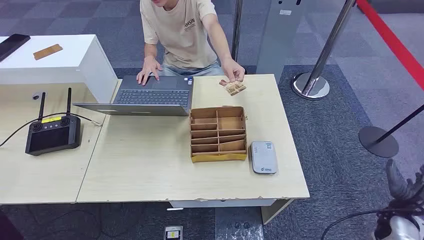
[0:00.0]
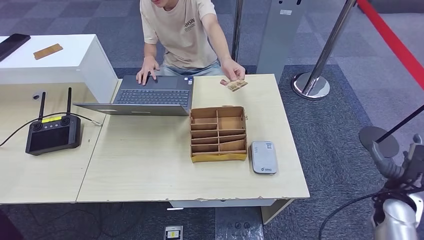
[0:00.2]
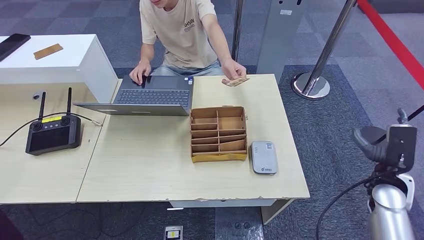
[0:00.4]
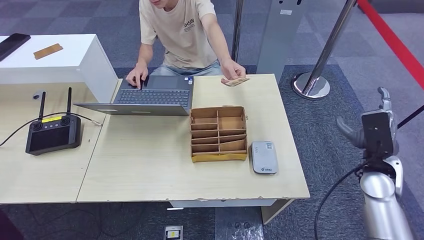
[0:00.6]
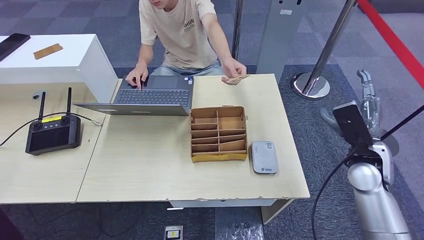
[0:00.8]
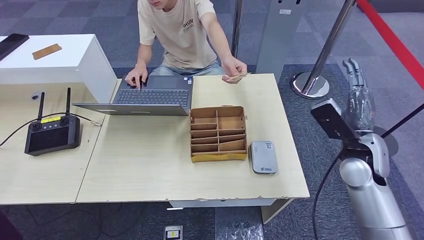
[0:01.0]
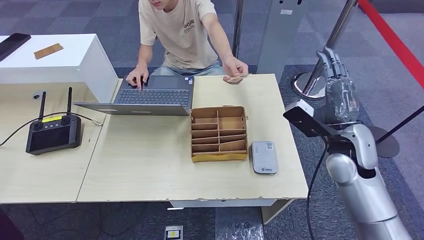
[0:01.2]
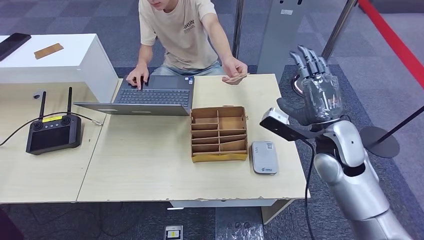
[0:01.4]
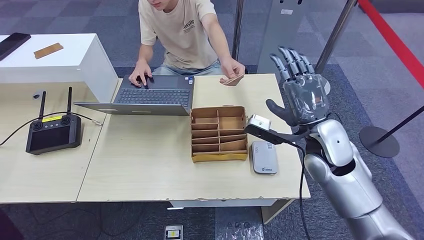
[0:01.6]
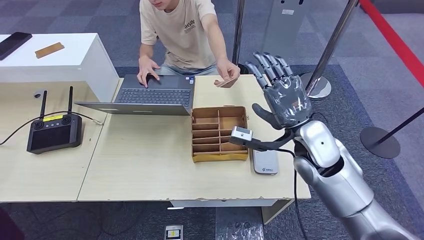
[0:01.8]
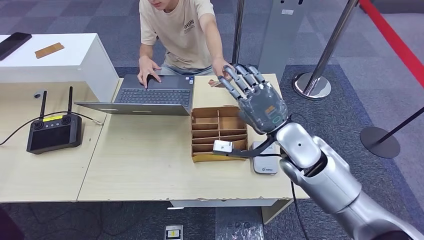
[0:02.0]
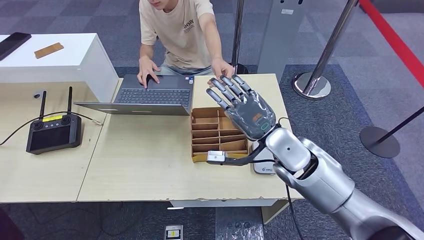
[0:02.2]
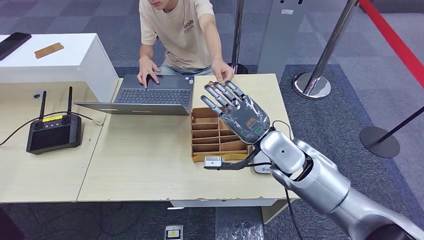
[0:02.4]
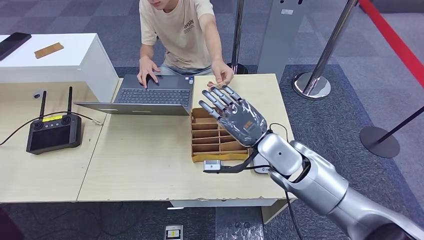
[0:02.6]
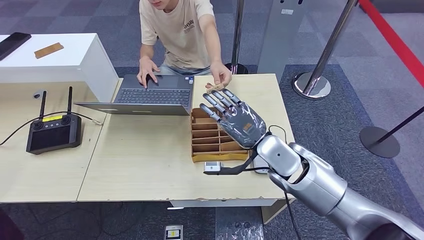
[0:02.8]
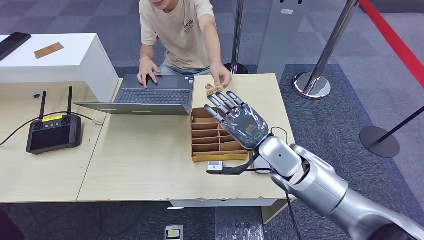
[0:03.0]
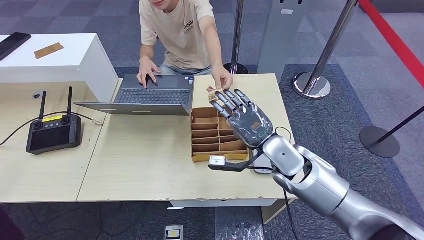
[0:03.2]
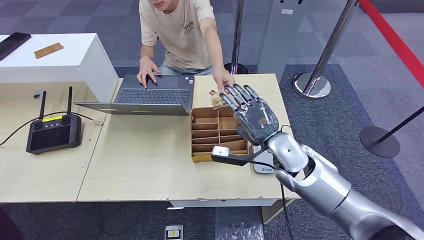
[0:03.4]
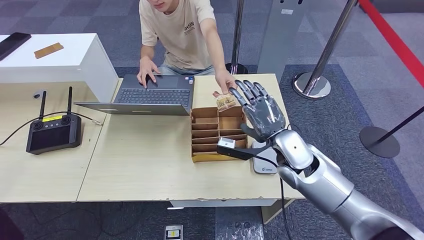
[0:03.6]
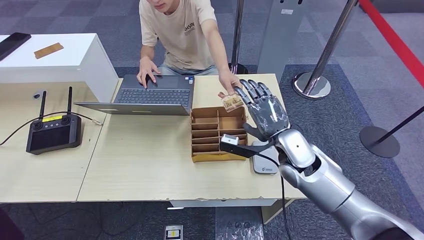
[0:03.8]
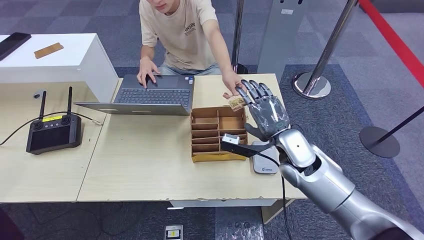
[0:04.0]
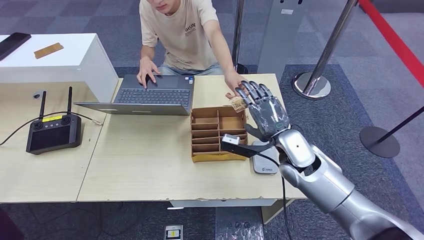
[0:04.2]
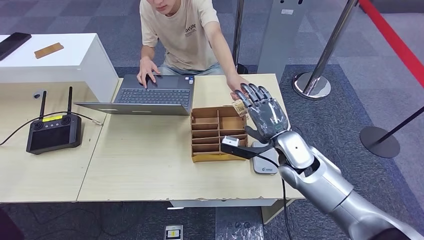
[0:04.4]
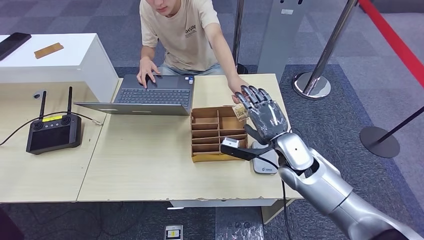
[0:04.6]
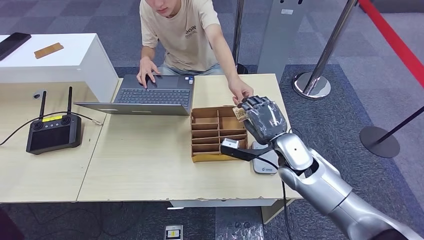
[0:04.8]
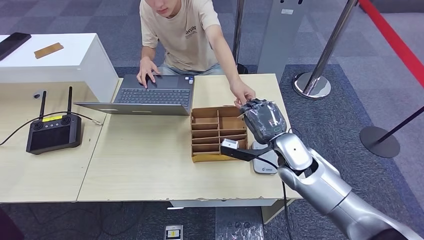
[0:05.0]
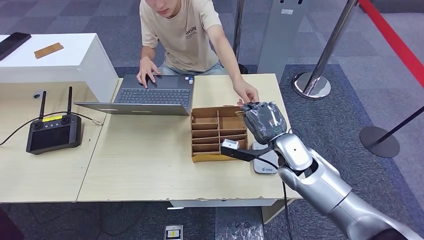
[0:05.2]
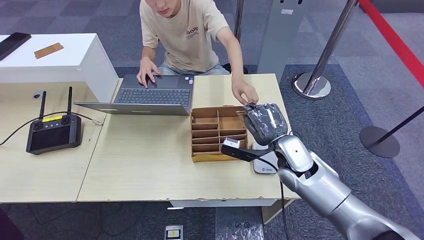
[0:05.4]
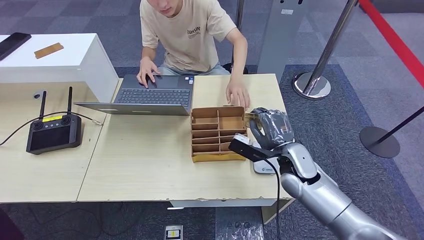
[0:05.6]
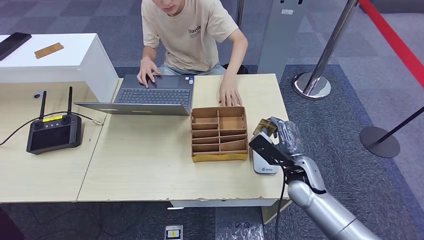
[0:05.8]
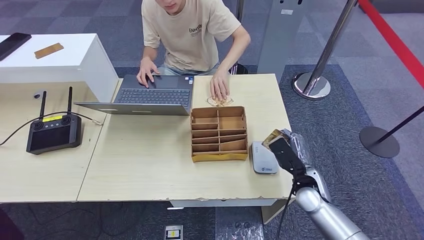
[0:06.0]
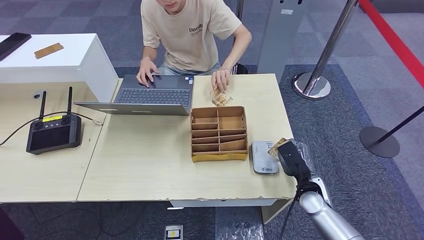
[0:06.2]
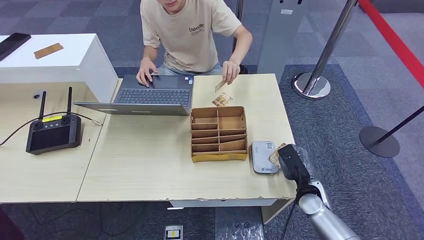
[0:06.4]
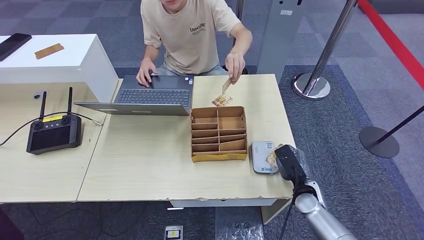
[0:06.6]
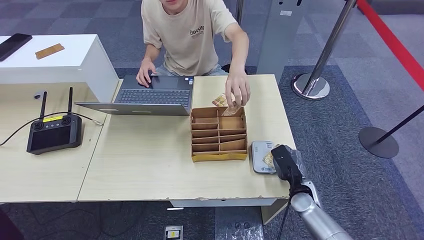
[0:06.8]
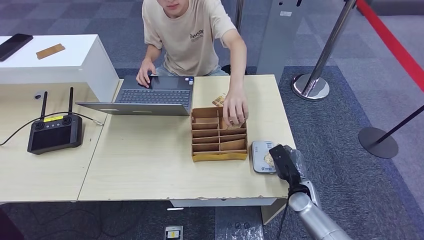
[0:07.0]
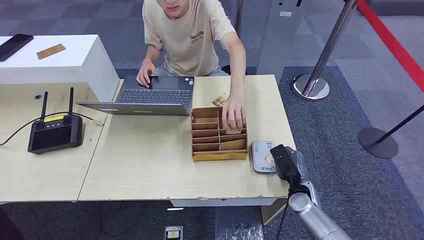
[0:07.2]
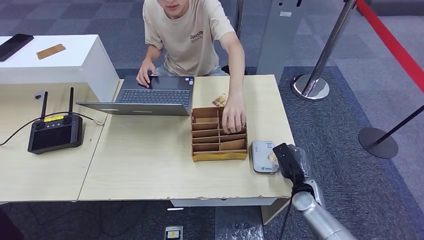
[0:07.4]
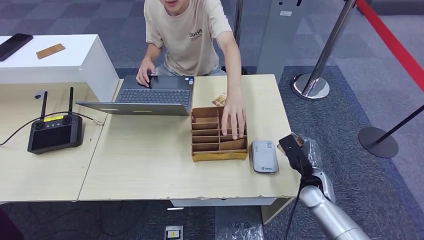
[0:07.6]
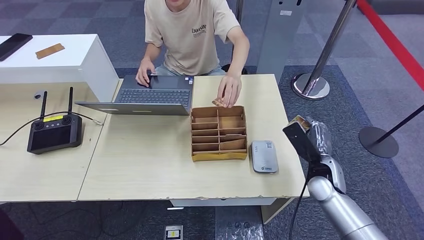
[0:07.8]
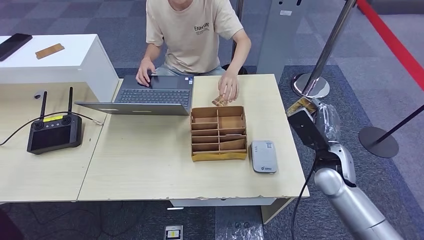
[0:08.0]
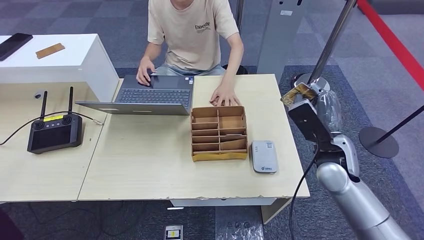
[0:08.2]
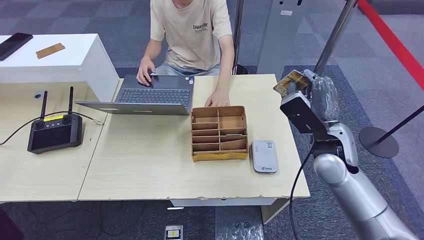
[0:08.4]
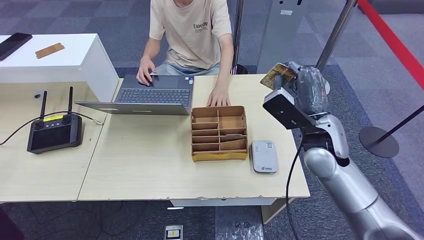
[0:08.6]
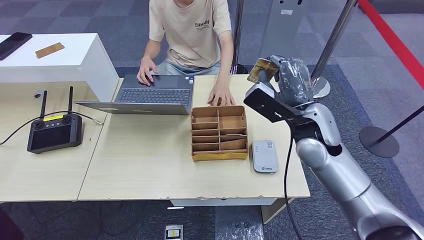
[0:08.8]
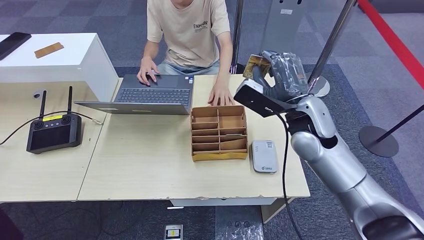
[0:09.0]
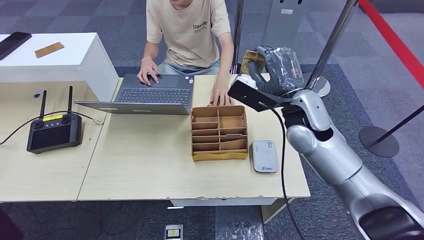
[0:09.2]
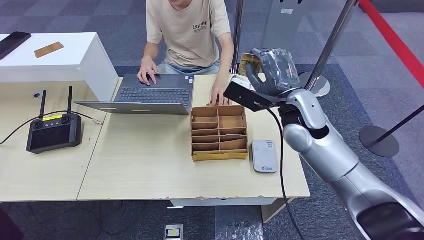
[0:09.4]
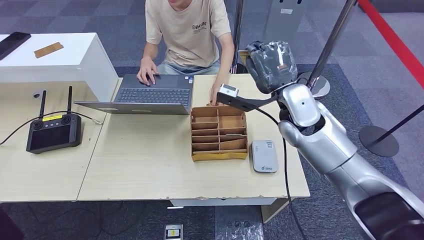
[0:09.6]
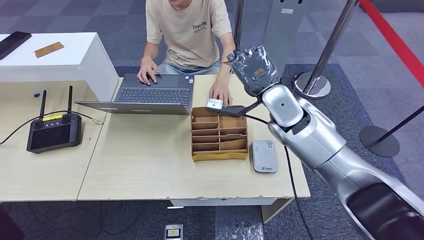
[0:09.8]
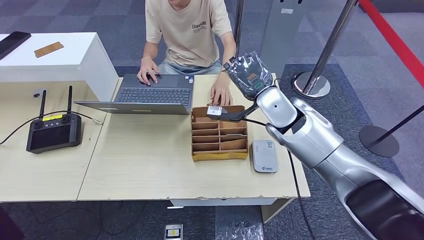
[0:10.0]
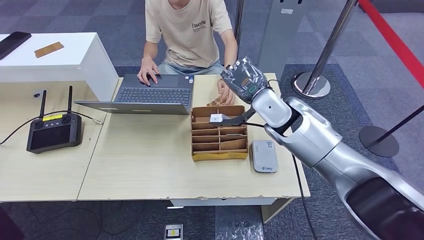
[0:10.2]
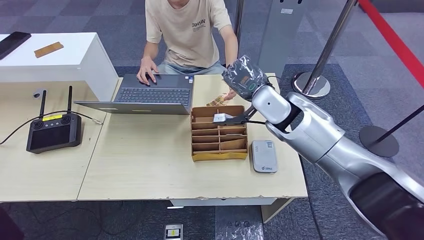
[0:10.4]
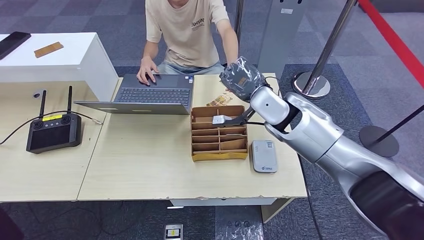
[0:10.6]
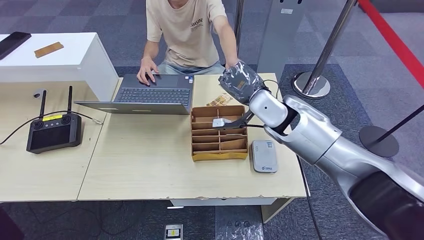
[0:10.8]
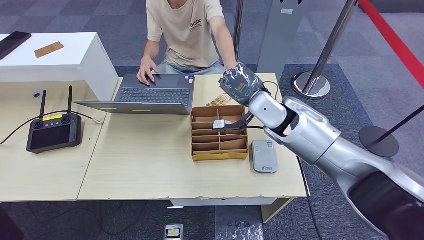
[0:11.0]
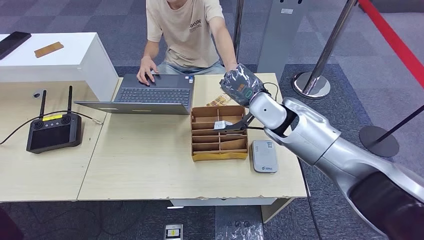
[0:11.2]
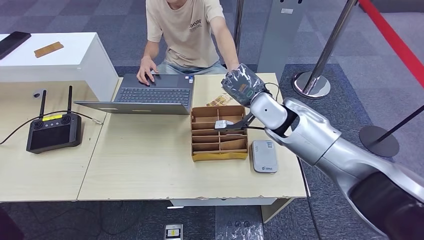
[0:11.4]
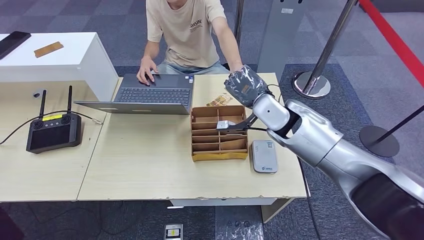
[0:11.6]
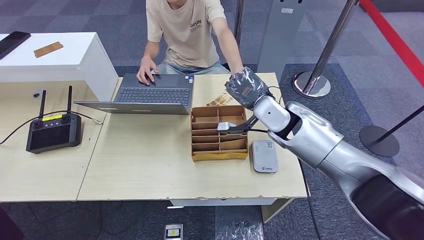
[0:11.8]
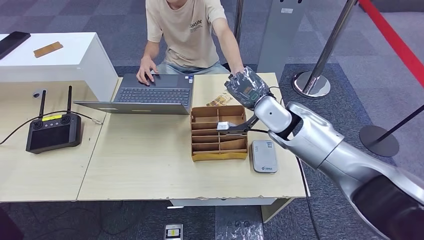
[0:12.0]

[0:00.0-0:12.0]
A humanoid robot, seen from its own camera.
Step, 0:00.0 to 0:05.6: Take the ID card from the person's hand.
Step, 0:05.8 to 0:06.6: Place the ID card on the card reader.
0:01.6 to 0:03.0: The right hand goes roughly 10 cm to the left and downward.
0:04.4 to 0:06.0: The right hand is displaced downward, to the right and backward by approximately 15 cm.
0:09.0 to 0:10.4: The right hand travels forward by about 5 cm.
0:10.4 to 0:12.0: The hands stay close to where they were, moving slightly.

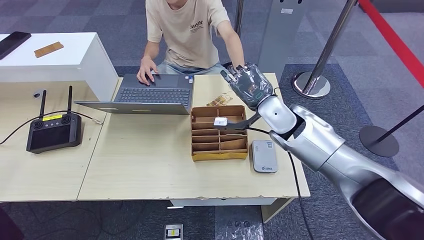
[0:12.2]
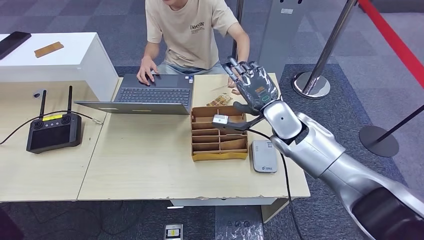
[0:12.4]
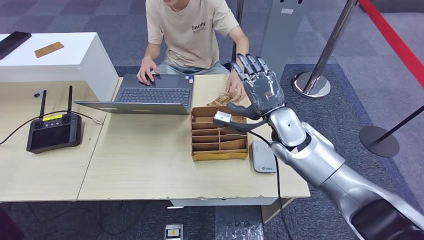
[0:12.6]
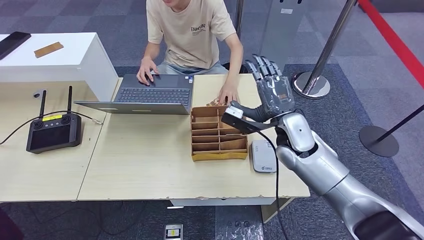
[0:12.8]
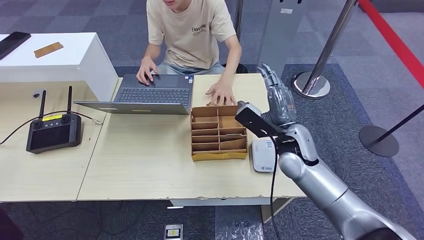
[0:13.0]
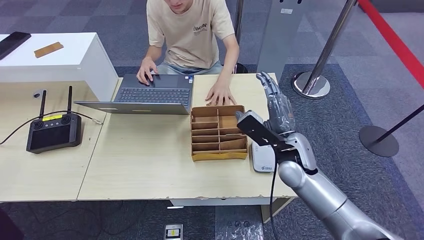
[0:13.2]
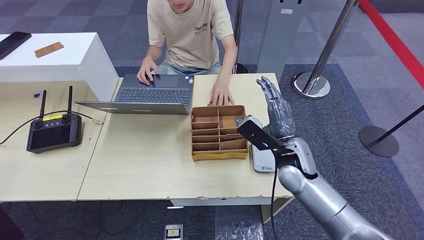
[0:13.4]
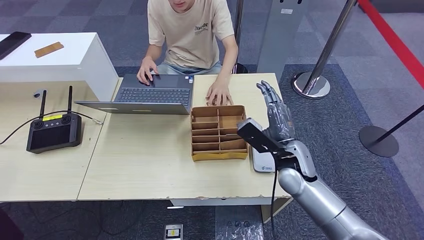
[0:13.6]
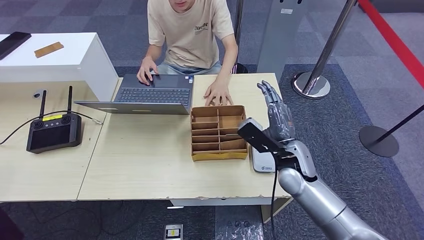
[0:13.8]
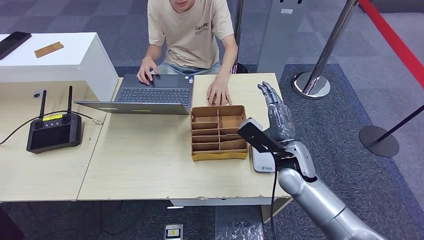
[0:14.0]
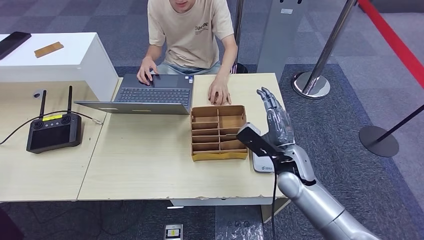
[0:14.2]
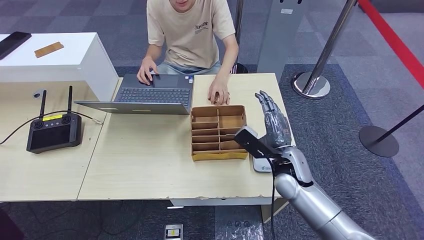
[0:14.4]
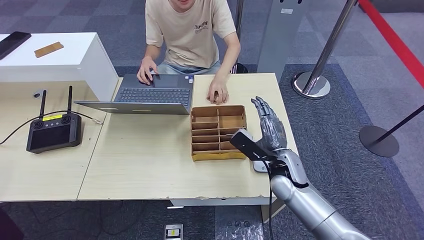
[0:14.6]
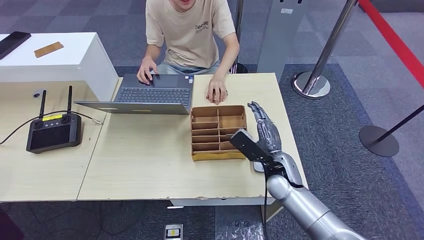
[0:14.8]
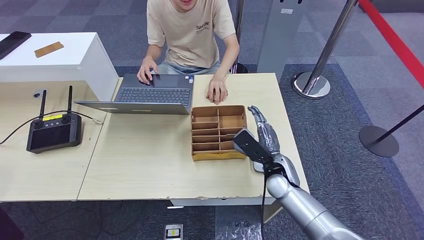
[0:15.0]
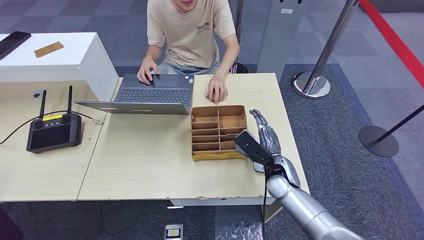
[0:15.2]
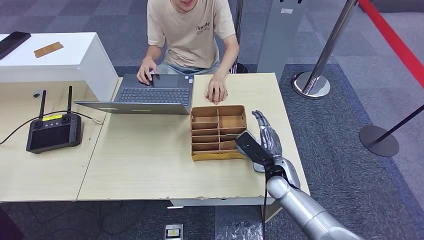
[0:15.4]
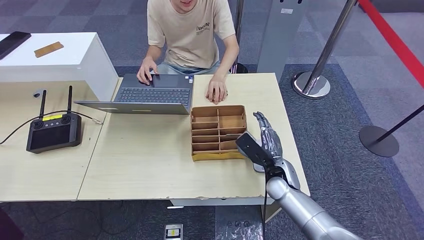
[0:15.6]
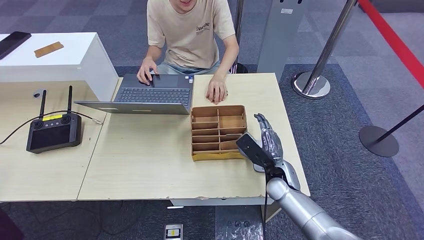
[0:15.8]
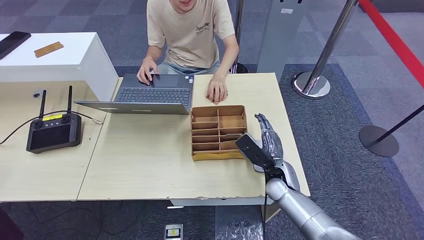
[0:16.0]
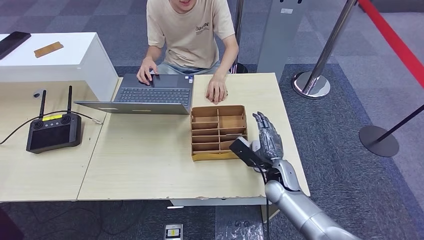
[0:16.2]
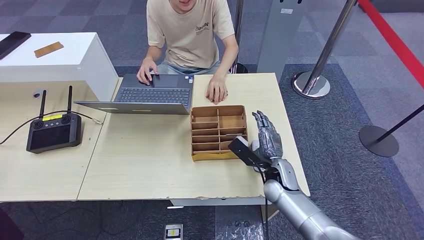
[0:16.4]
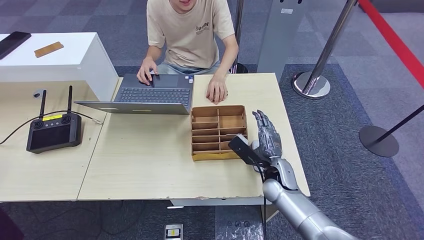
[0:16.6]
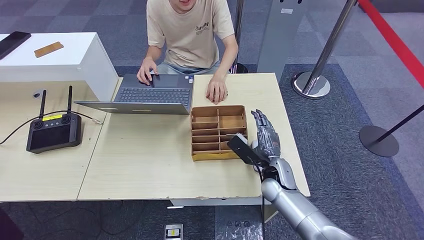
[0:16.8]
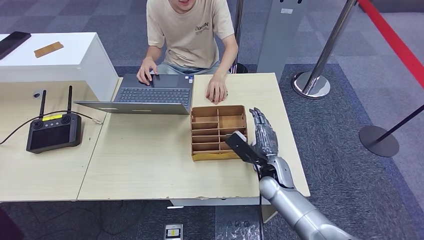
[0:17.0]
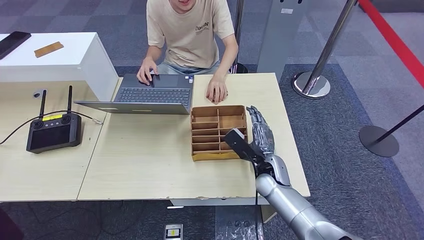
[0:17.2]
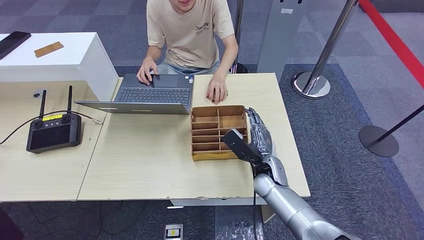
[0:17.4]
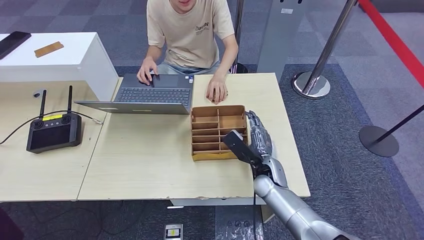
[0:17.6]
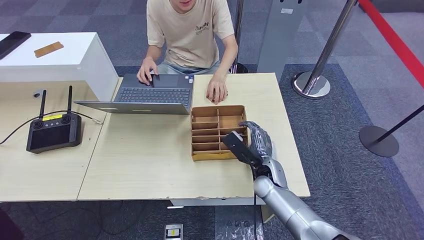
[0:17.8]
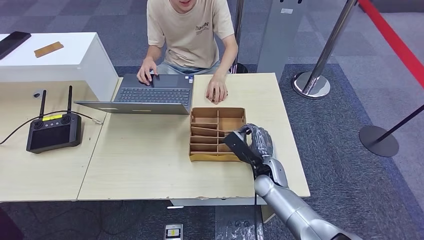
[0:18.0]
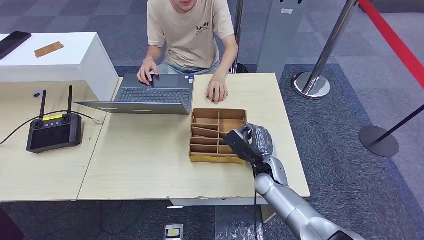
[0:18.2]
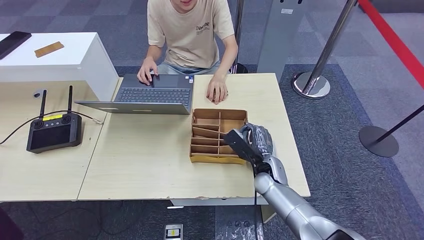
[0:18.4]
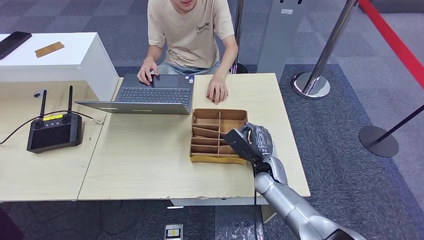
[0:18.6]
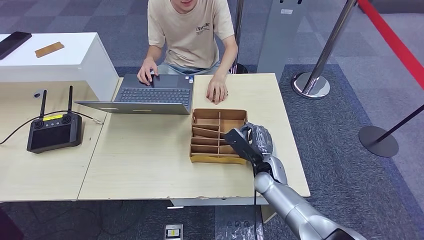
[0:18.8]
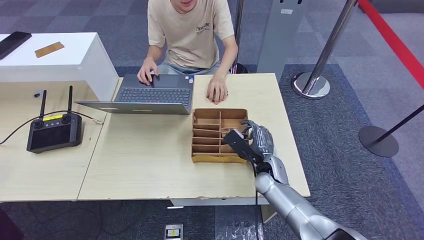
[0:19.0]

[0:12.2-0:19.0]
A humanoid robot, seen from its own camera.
0:12.2 to 0:13.6: The right hand is displaced backward and downward by roughly 10 cm.
0:13.6 to 0:15.0: The right hand is displaced downward by some 5 cm.
0:15.0 to 0:17.6: The hands make only small movements.
0:17.6 to 0:19.0: The two hands keep their place.
